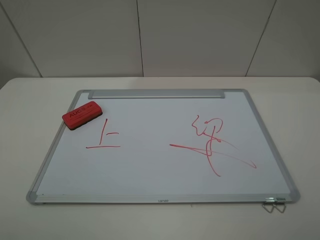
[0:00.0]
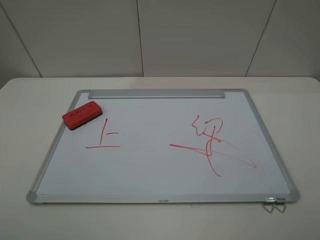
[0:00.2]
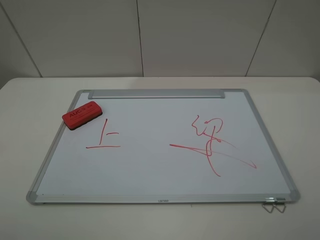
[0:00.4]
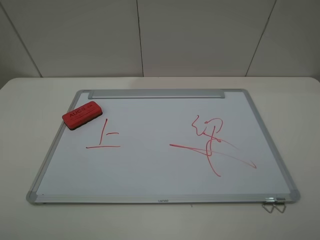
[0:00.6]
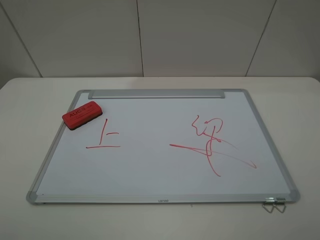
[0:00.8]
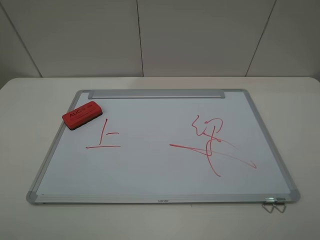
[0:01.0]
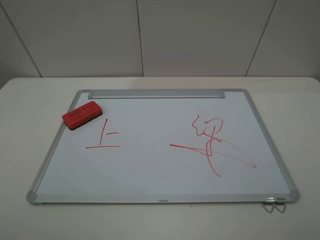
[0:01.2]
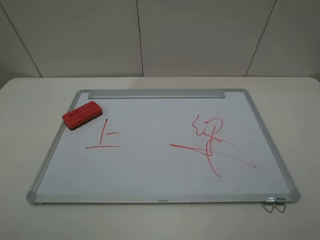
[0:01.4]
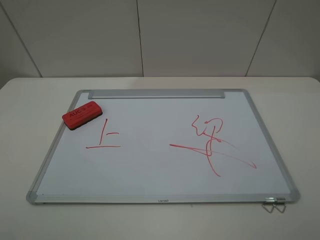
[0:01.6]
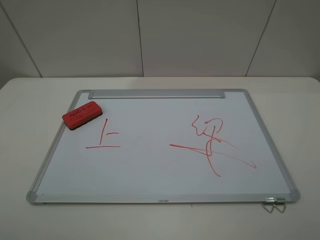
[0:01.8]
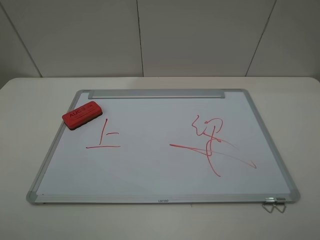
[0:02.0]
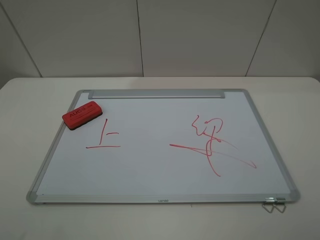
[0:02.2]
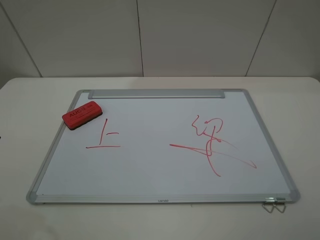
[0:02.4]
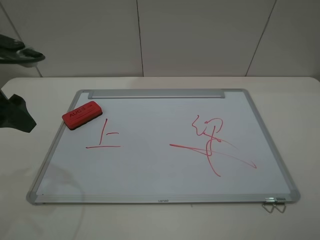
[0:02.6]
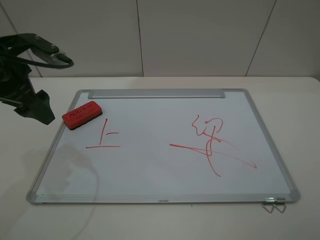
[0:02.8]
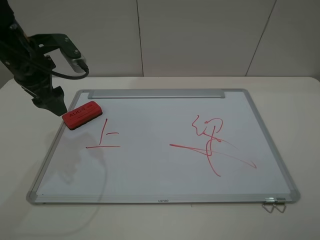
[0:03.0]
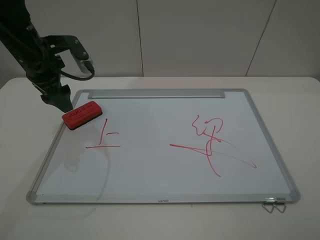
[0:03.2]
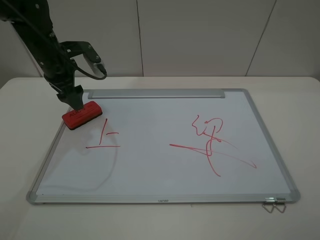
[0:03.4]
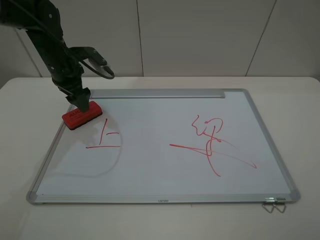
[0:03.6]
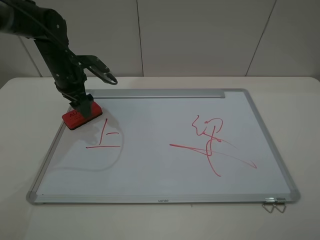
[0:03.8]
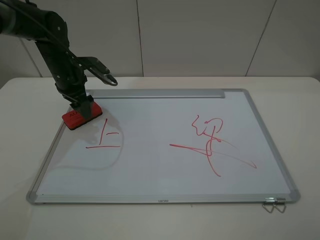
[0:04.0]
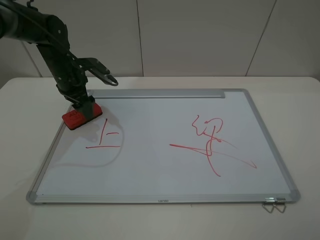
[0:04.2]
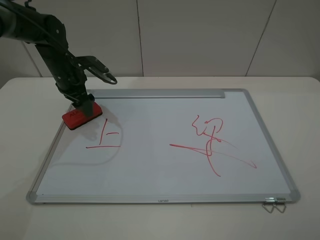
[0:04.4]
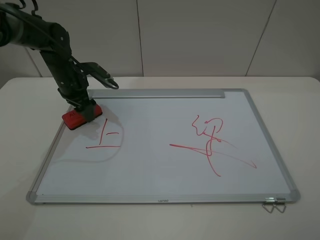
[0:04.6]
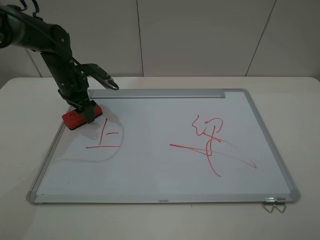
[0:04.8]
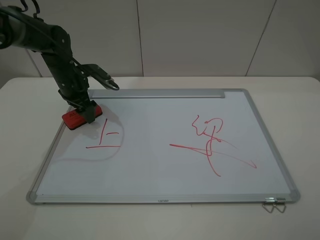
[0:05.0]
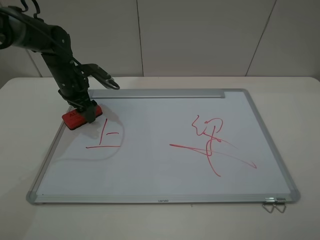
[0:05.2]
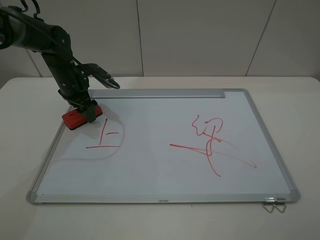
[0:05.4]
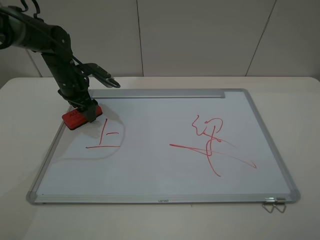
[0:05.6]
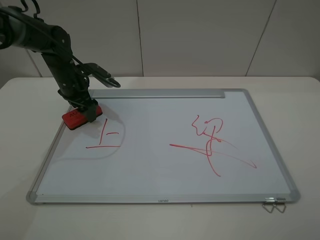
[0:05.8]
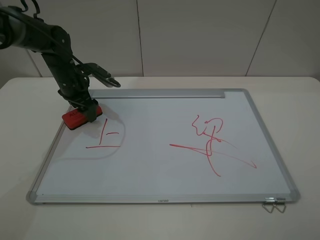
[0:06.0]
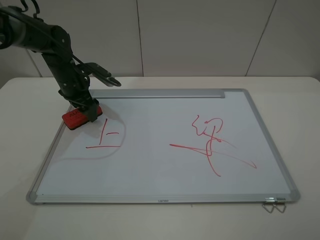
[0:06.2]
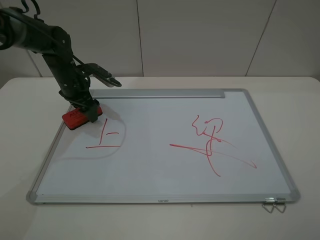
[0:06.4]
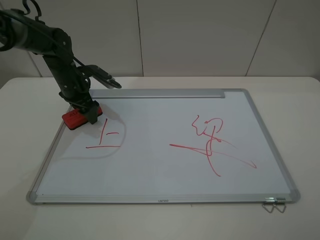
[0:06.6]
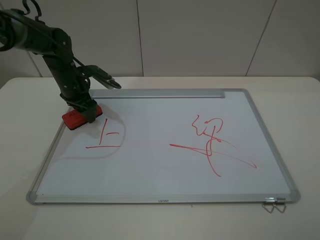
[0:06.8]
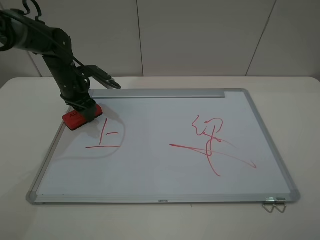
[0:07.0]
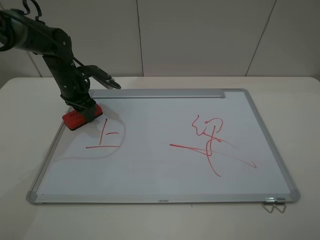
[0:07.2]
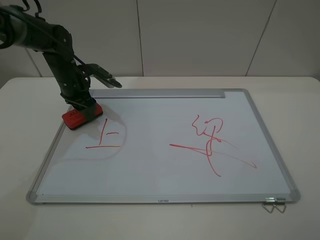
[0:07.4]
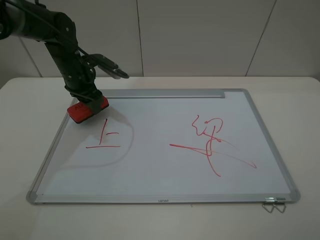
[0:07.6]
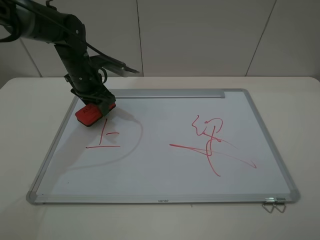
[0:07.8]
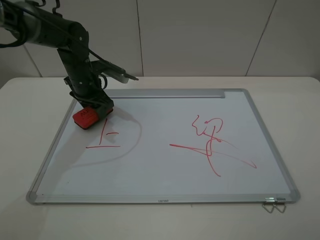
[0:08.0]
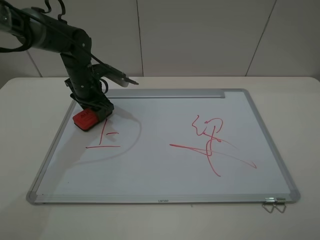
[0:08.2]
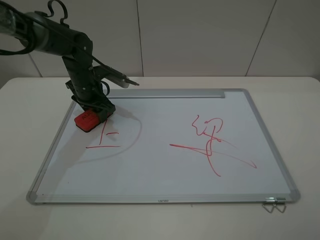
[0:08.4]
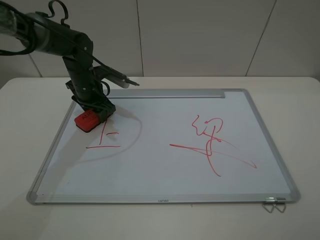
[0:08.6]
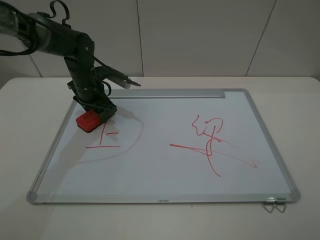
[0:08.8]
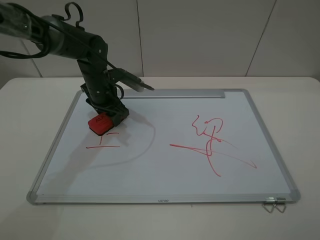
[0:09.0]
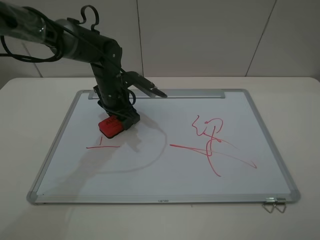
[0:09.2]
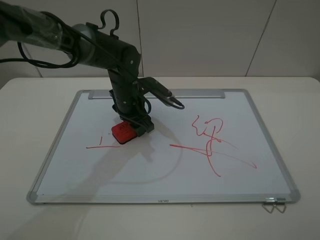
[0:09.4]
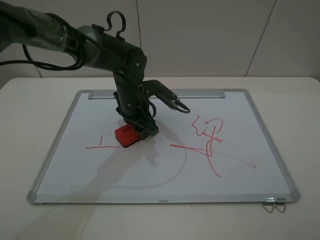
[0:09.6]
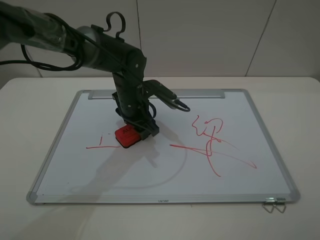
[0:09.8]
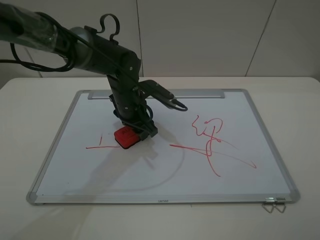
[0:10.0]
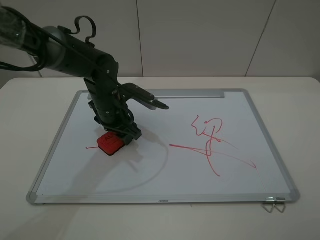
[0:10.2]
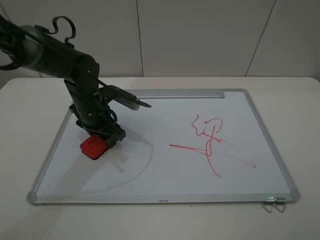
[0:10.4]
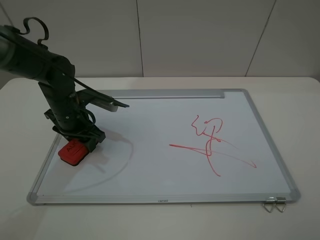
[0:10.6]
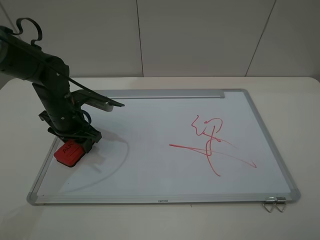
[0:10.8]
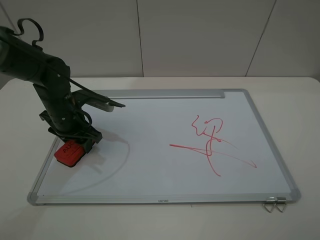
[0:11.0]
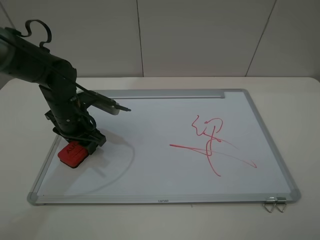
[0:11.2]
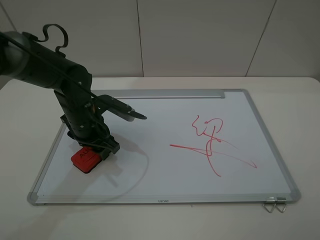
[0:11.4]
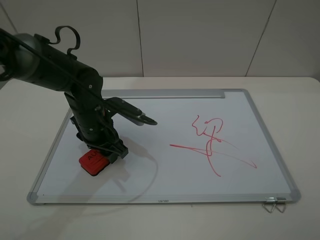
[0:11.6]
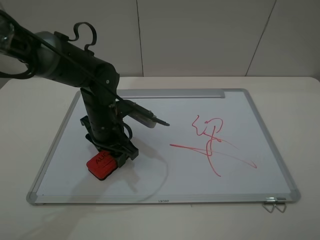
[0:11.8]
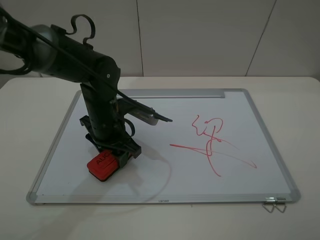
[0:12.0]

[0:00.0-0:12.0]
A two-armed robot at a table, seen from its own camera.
Step, 0:00.0 to 0:06.8: Grasp the eraser with the left gripper.
Step, 0:07.0 to 0:11.8: Grasp the eraser and wipe the blackboard with the left gripper.
0:00.0 to 0:01.6: Neither gripper changes place.
0:01.6 to 0:03.0: The left gripper travels forward by roughly 35 cm.
0:03.0 to 0:04.4: The left gripper is displaced downward and forward by some 15 cm.
0:04.4 to 0:06.0: The grippers make only small movements.
0:06.0 to 0:07.6: The left gripper closes up.
0:07.6 to 0:09.0: The left gripper moves to the right, roughly 5 cm.
0:09.0 to 0:10.4: The left gripper moves backward, about 5 cm, and reaches approximately 10 cm to the right, then returns.
0:10.4 to 0:12.0: The left gripper is displaced to the right by some 5 cm.

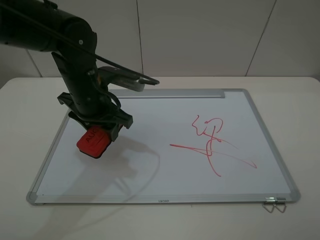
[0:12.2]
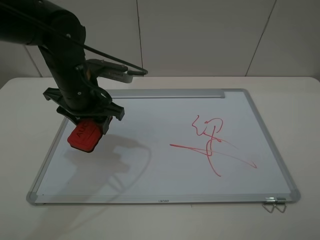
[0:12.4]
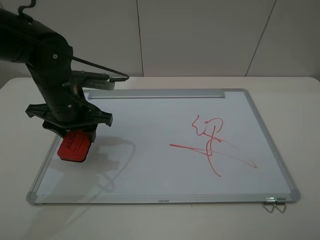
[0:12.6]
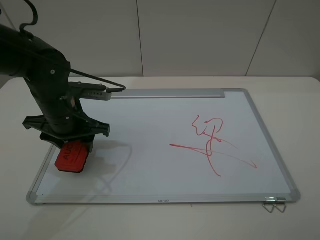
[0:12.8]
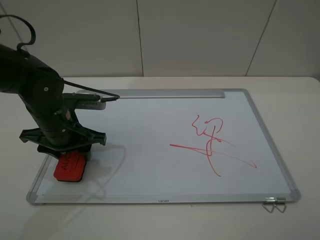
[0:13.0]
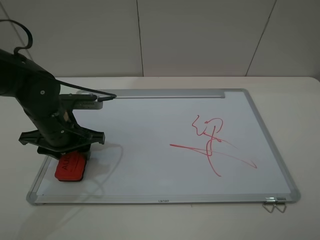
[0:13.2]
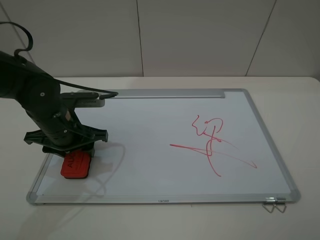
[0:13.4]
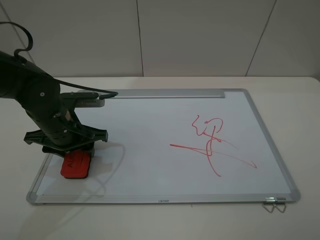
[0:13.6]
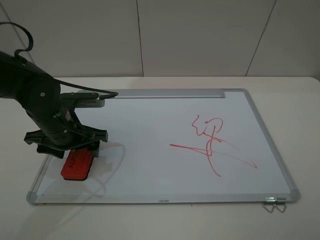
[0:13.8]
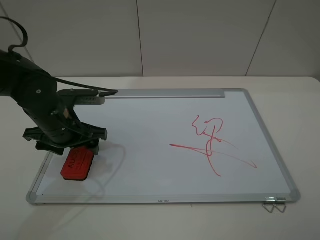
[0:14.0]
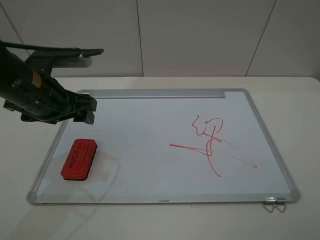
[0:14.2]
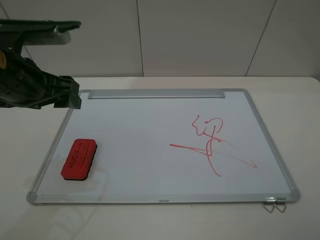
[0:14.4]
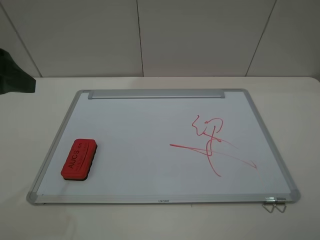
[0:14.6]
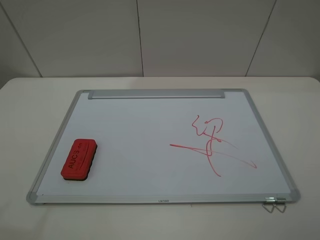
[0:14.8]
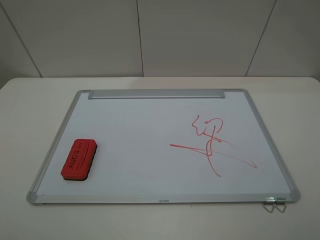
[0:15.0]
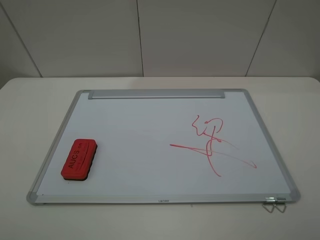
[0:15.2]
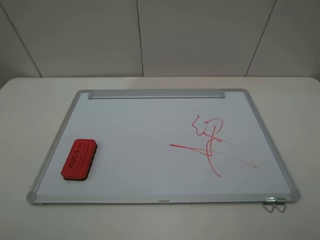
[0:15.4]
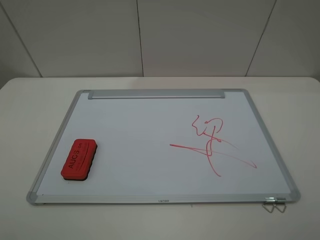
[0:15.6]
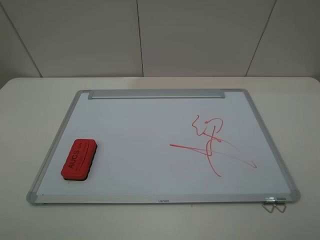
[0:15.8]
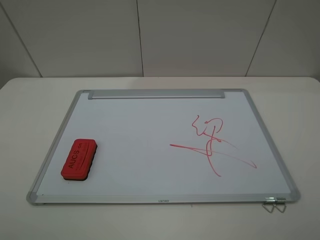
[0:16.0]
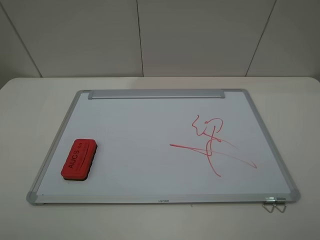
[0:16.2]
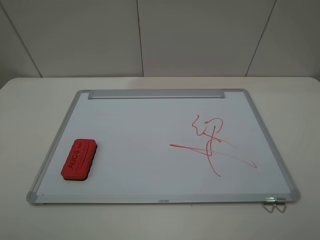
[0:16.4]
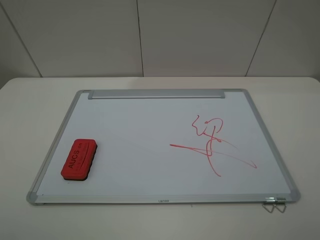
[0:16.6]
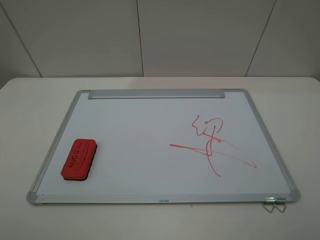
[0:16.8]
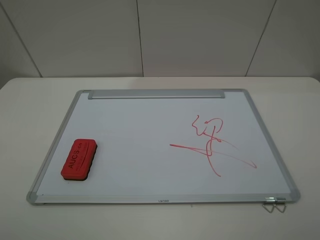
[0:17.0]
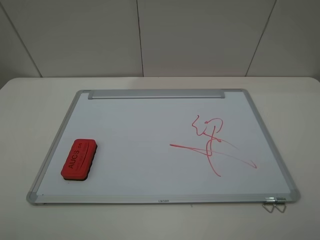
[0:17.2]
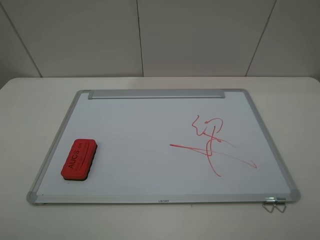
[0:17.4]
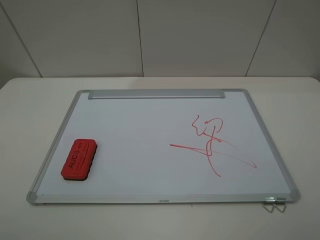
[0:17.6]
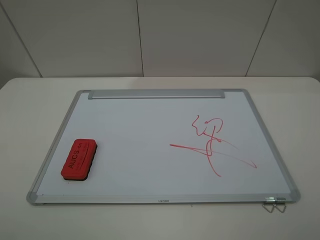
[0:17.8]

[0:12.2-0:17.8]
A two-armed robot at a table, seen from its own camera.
Step, 0:12.2 to 0:14.0: Place the eraser with the left gripper.
0:12.2 to 0:13.6: The left gripper is displaced to the left and downward by about 10 cm.
0:13.6 to 0:15.0: The left gripper moves upward, backward and to the left, roughly 35 cm, and opens up.

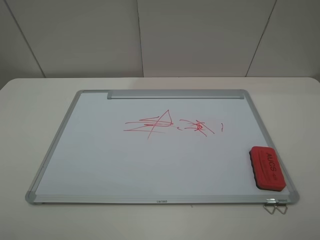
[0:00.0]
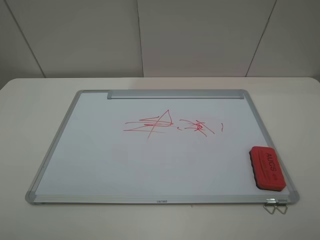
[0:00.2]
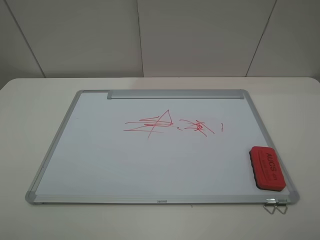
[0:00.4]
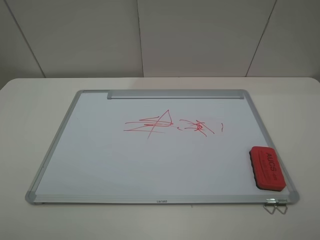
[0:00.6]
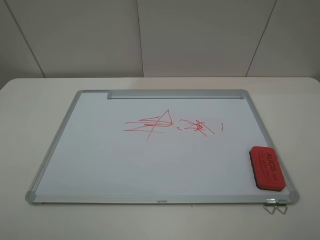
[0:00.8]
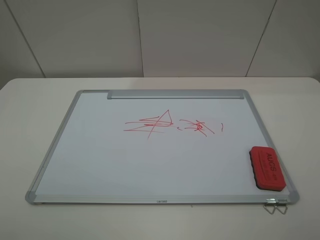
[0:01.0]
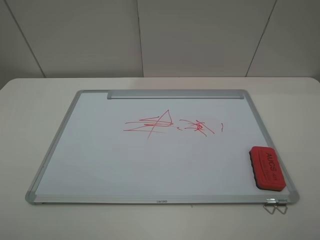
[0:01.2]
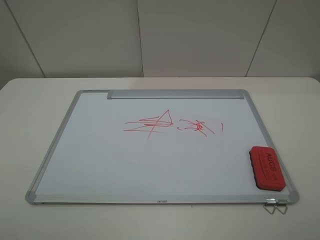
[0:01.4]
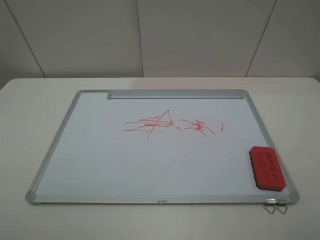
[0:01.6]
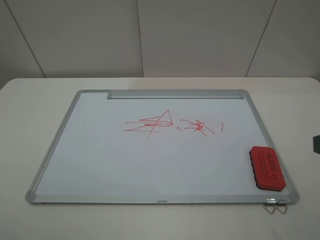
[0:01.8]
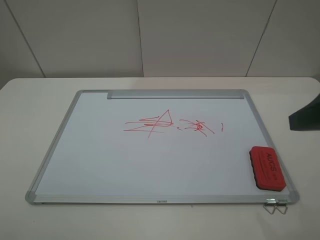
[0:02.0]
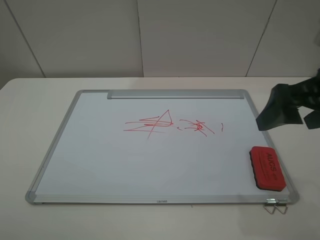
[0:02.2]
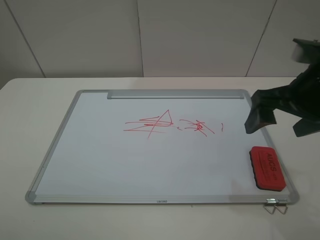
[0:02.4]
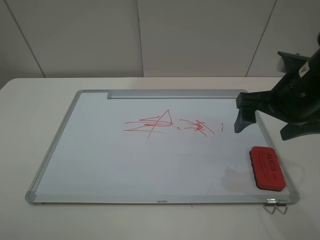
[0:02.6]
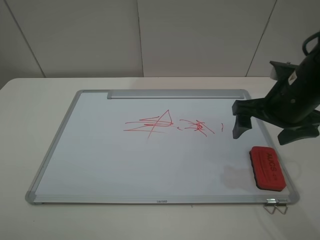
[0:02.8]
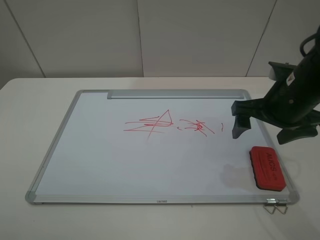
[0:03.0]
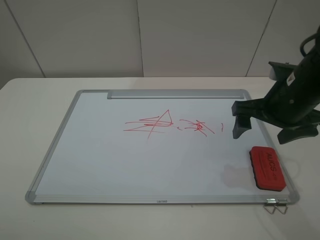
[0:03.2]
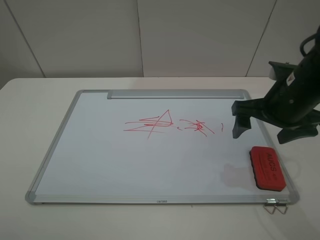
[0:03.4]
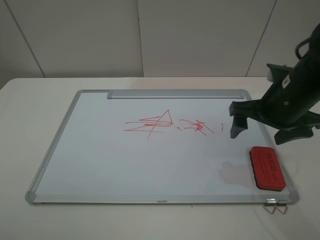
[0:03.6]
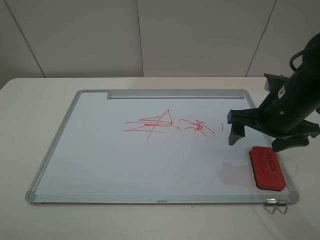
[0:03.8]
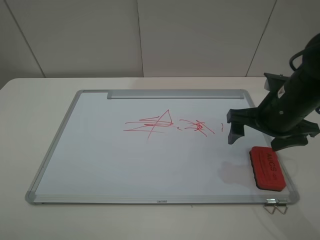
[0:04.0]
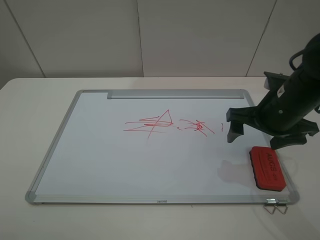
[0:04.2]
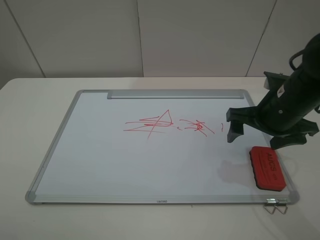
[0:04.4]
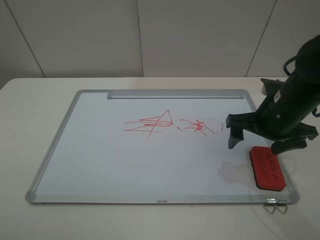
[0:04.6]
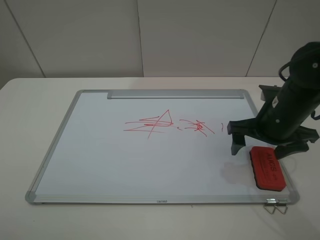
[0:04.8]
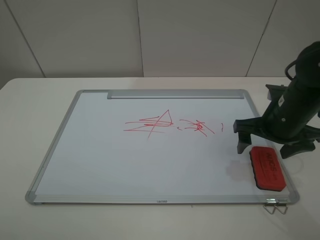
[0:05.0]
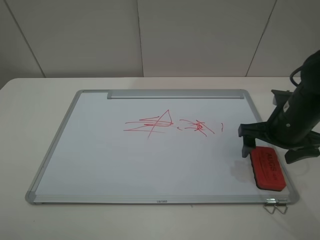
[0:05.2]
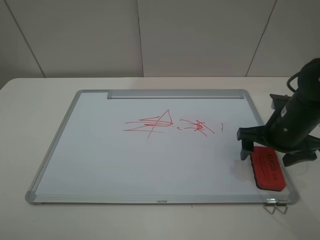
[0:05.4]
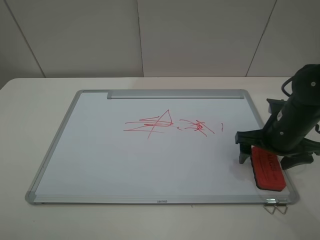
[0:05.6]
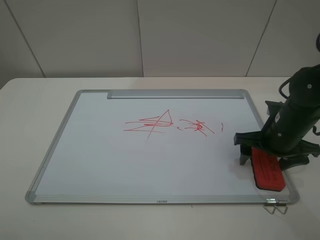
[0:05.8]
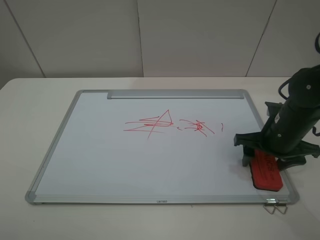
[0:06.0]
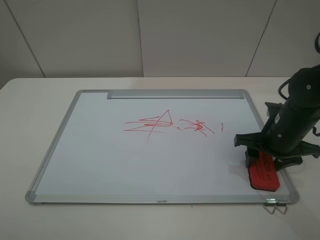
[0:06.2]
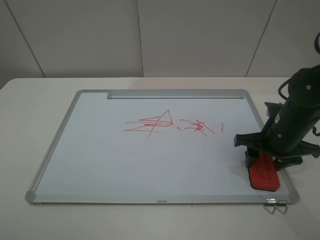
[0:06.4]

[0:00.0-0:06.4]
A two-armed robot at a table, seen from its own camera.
Step, 0:00.0 to 0:06.2: Grasp the eraser with the right gripper.
0:01.6 to 0:03.2: The right gripper travels forward by roughly 25 cm.
0:03.2 to 0:04.8: The grippers stay close to where they were, moving slightly.
0:04.8 to 0:06.4: The right gripper closes its fingers.
